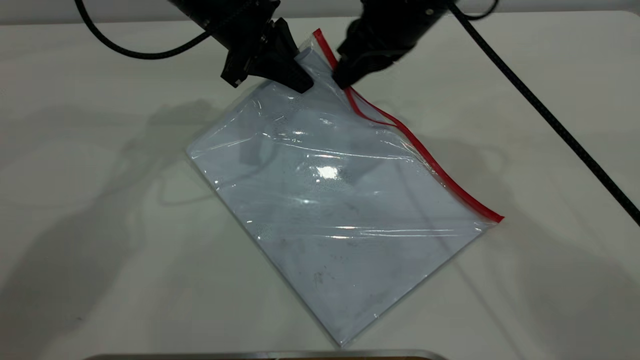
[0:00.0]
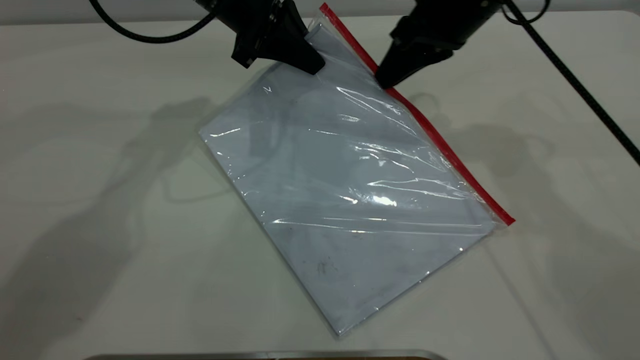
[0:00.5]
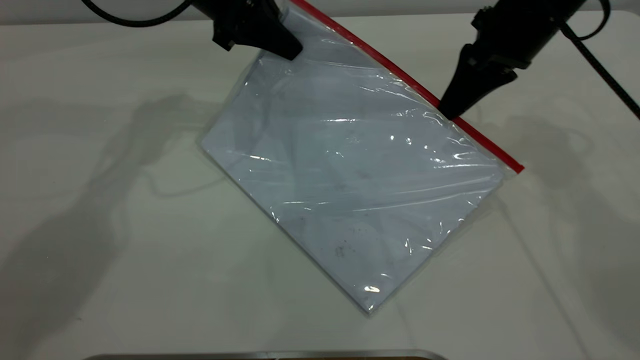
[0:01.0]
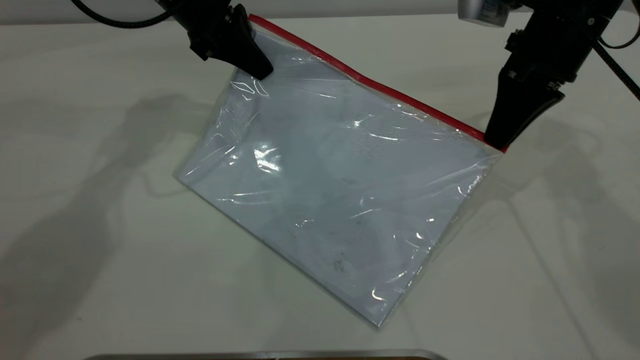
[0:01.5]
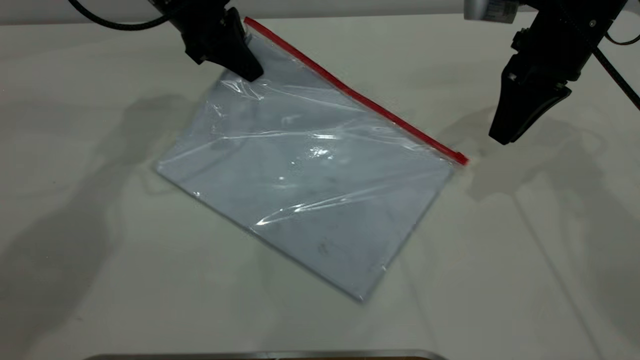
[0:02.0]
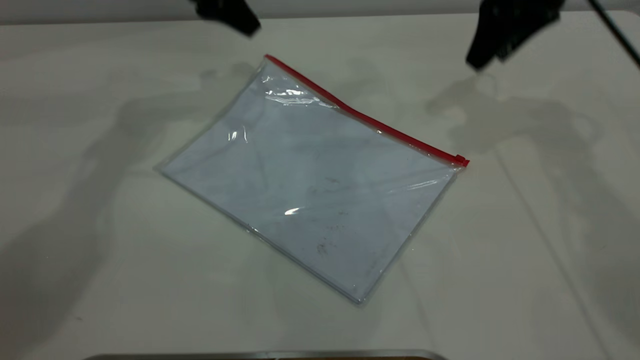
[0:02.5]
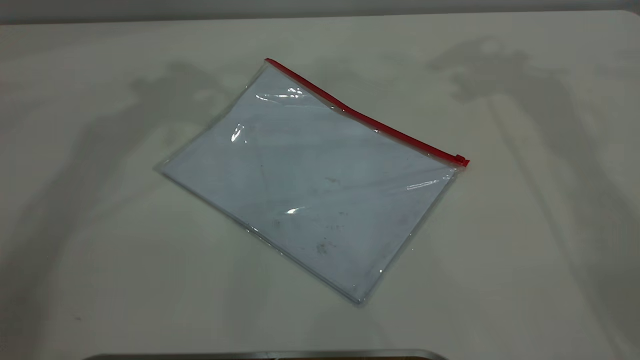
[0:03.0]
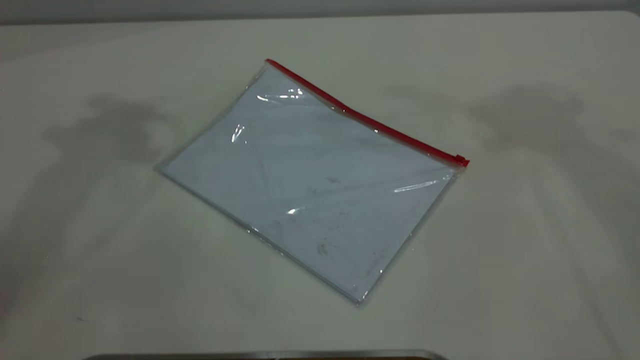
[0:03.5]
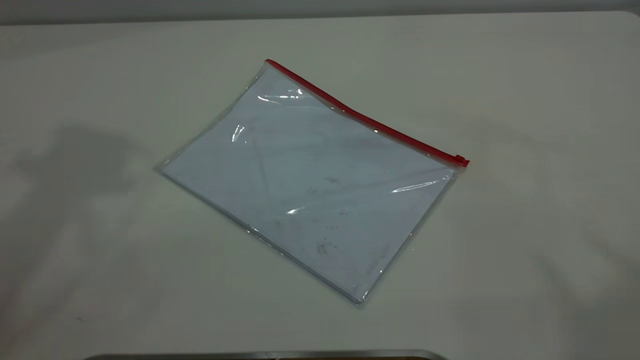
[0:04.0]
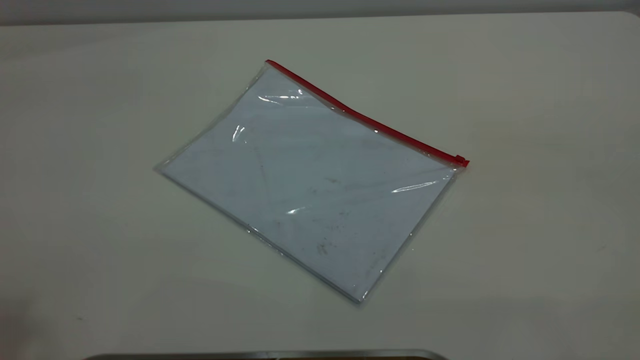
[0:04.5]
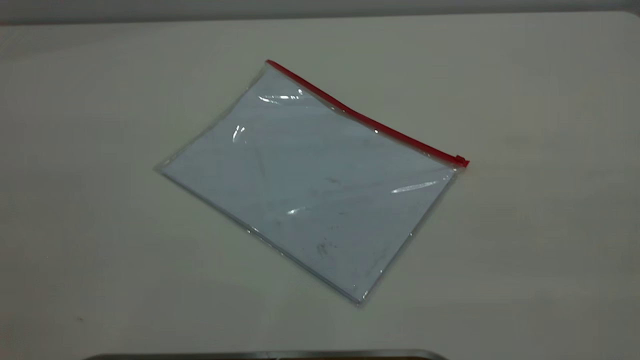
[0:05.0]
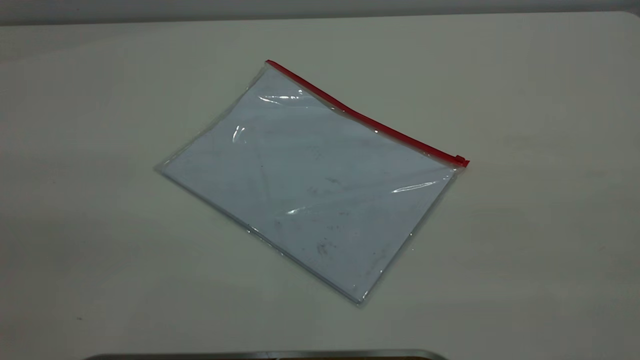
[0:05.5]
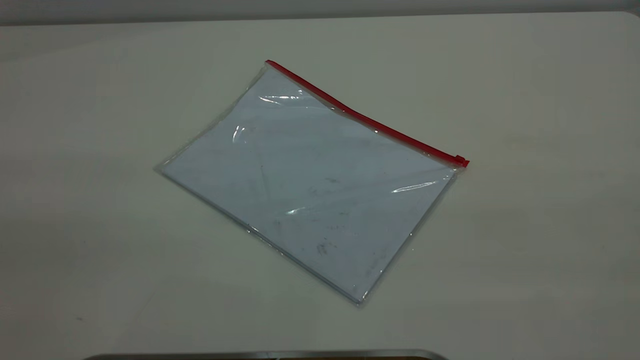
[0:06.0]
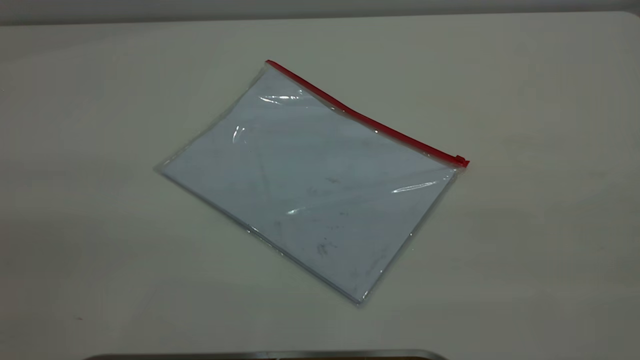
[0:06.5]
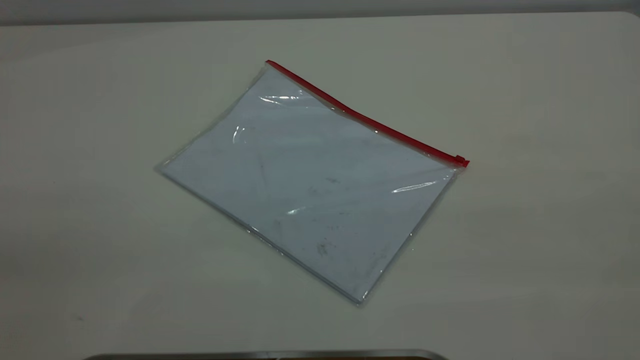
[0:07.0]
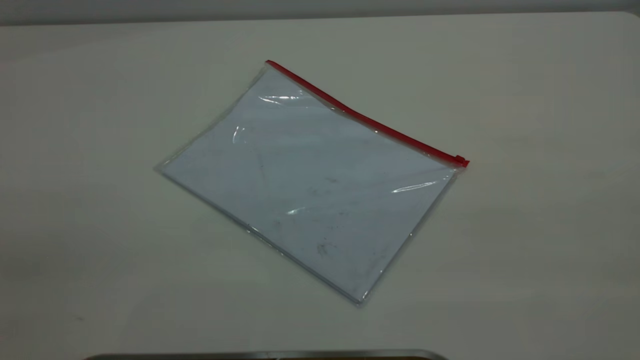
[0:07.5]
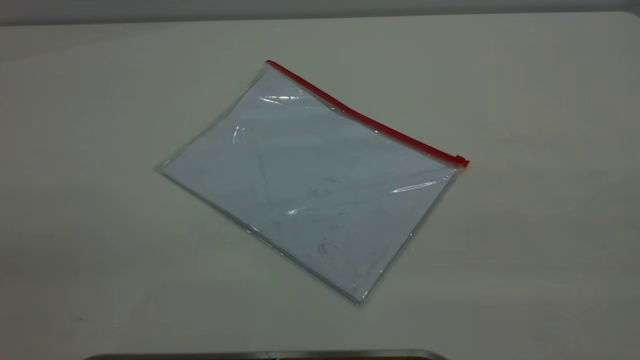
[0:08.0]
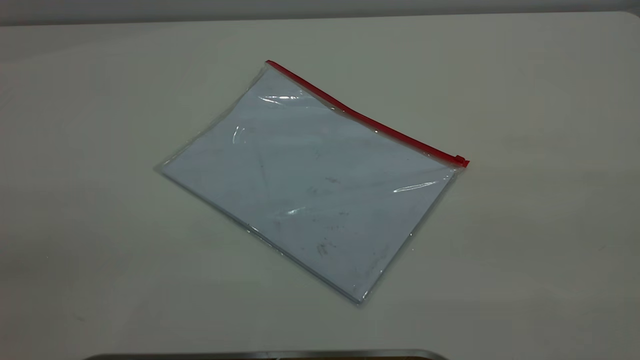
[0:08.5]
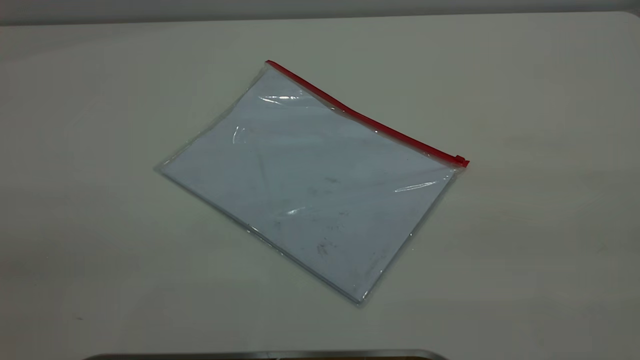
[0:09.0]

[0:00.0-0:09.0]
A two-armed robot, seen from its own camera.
Step, 0:00.0 to 0:02.0: Pulling up the zipper on the transparent plastic bag with the right gripper to close it.
0:00.0 to 0:02.0: The left gripper shifts by roughly 5 cm. The right gripper shifts some 15 cm to the right, and opens up.
0:02.0 to 0:04.5: The right gripper heads backward and upward, covering about 50 cm, and opens its fingers; the left gripper shifts about 50 cm upward and backward, and opens its fingers.
